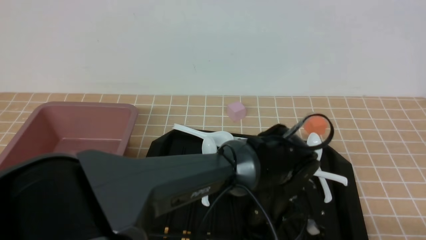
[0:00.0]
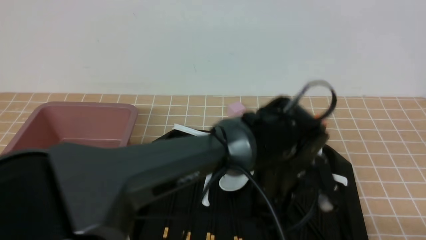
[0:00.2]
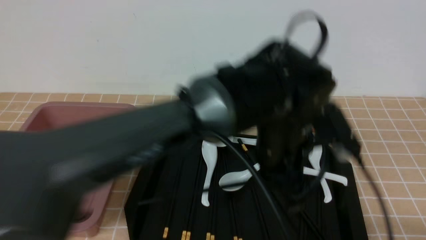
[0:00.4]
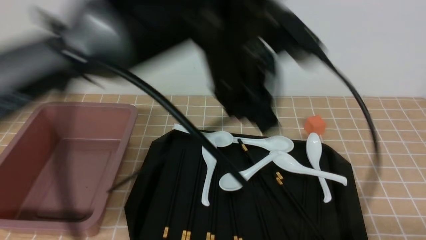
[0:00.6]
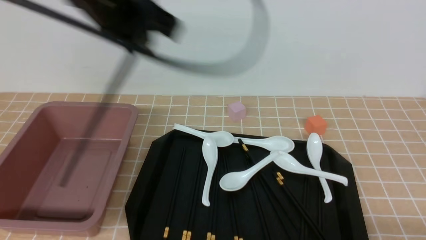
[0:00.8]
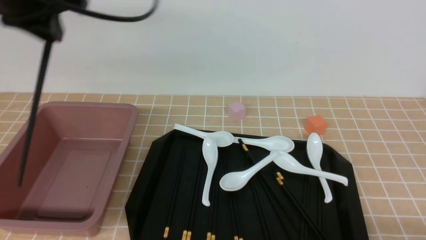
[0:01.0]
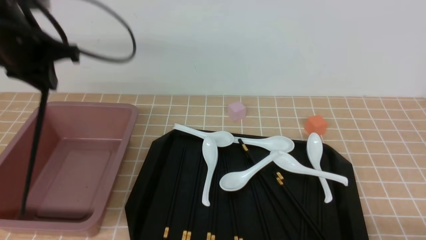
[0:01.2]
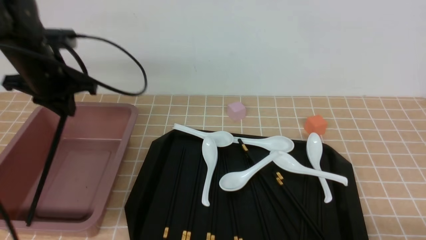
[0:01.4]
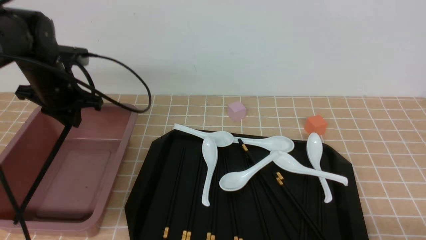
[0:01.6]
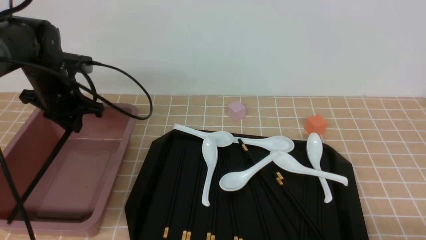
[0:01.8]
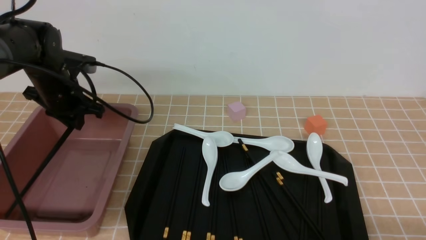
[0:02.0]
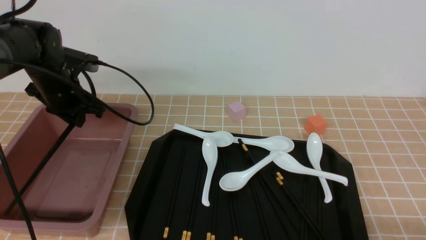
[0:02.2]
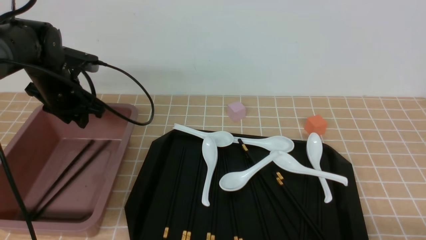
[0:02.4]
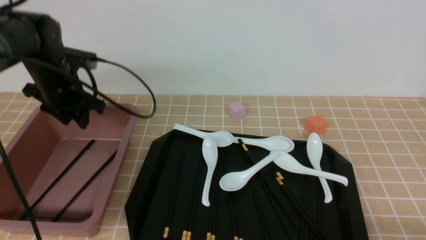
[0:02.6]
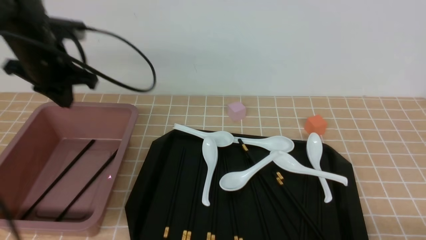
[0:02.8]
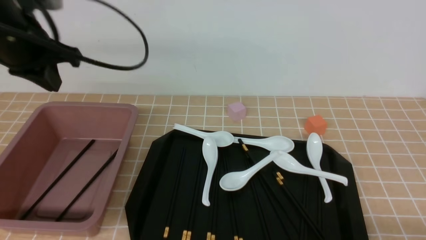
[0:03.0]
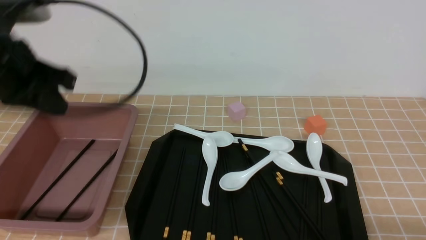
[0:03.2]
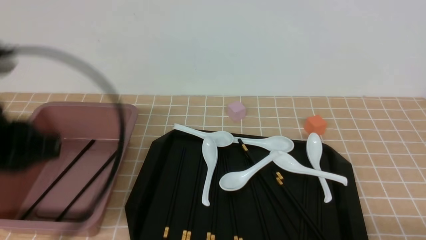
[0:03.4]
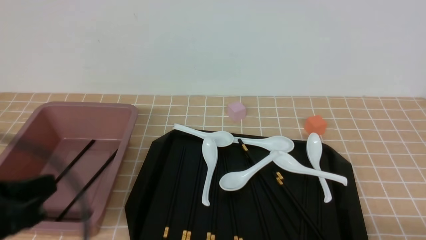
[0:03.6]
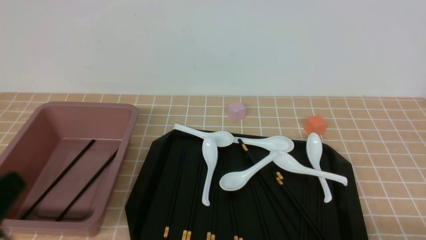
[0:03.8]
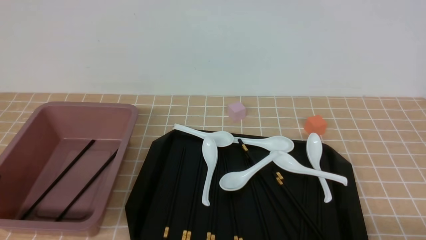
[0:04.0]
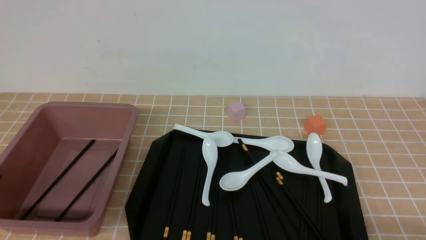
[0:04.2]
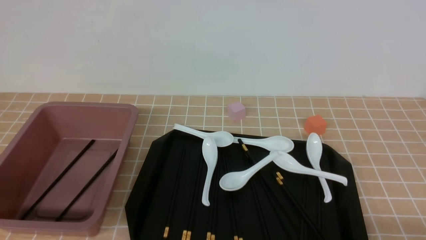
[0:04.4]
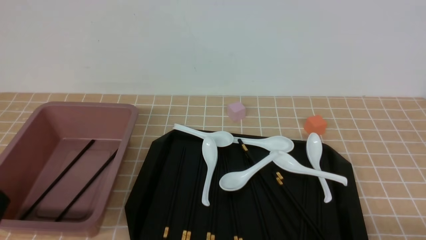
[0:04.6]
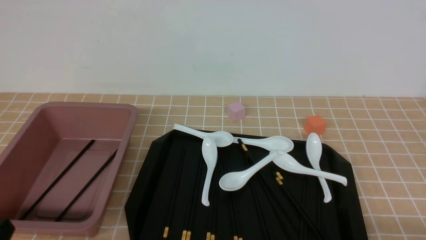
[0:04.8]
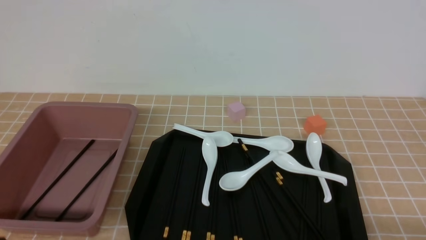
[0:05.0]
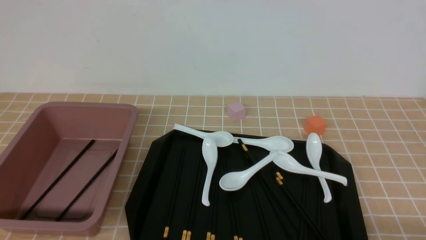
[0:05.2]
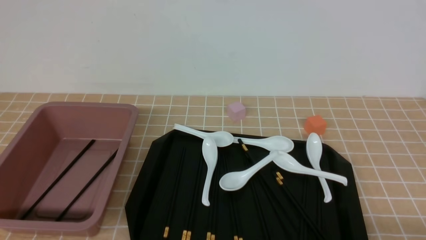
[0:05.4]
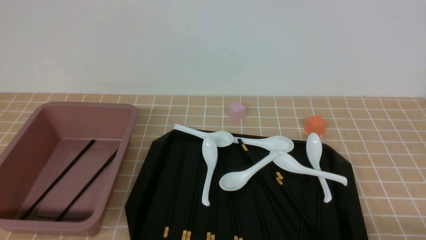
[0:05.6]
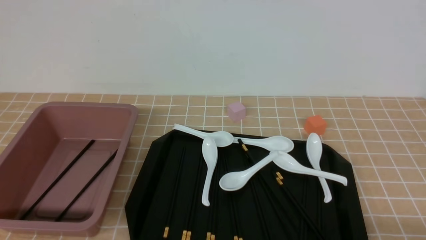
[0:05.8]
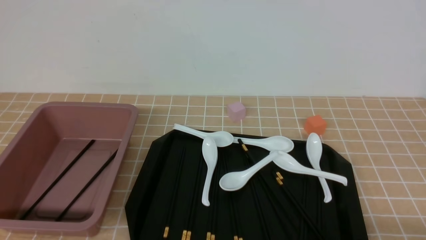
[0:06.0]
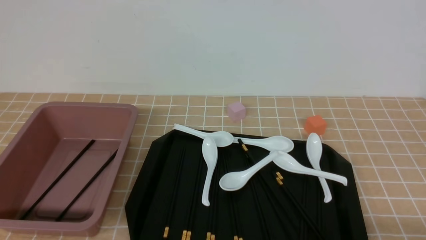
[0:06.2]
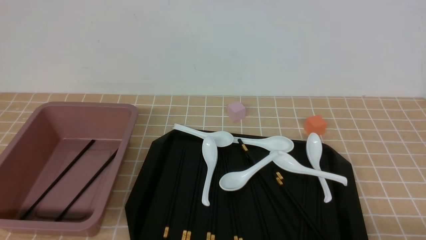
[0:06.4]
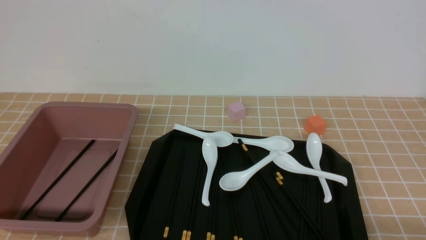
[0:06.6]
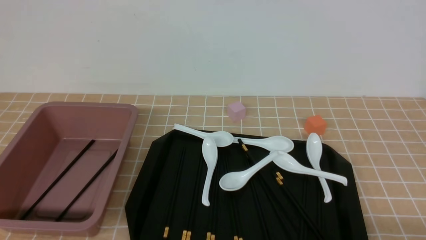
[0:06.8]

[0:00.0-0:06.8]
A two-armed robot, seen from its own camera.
Step, 0:00.6 to 0:02.6: use the left arm to put the chopsticks into the lunch box.
0:00.0 to 0:01.4: The left gripper travels to the left by approximately 35 cm.
0:01.4 to 0:02.8: The left gripper opens and closes again.
0:02.8 to 0:04.0: The left gripper shifts some 30 cm backward.
